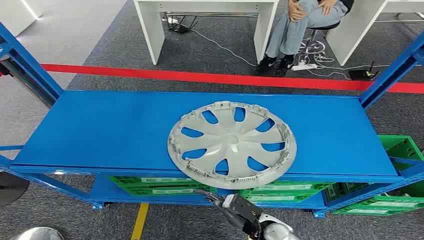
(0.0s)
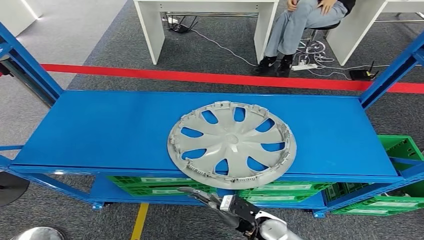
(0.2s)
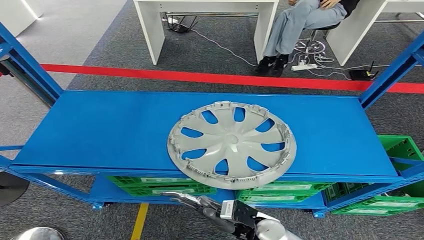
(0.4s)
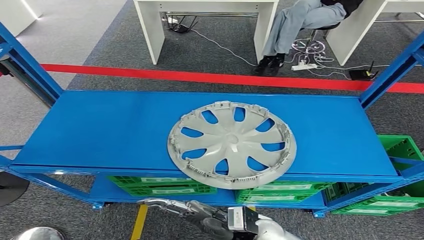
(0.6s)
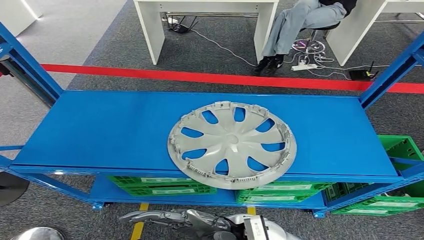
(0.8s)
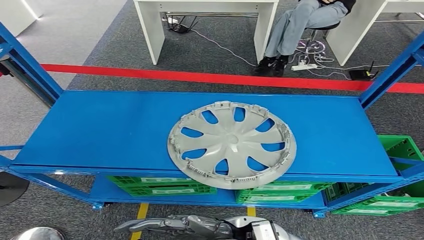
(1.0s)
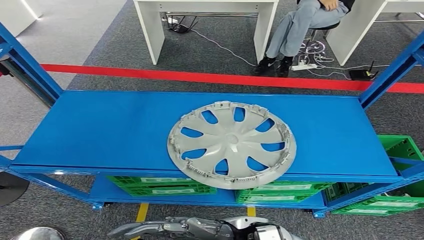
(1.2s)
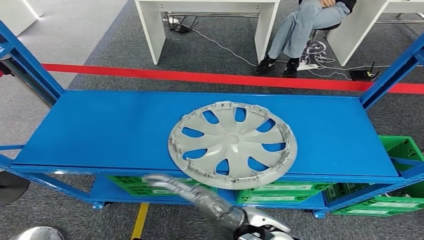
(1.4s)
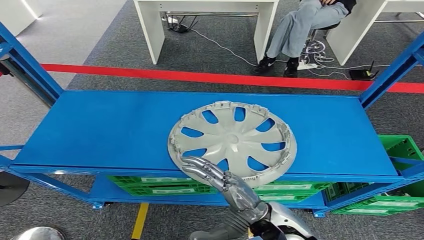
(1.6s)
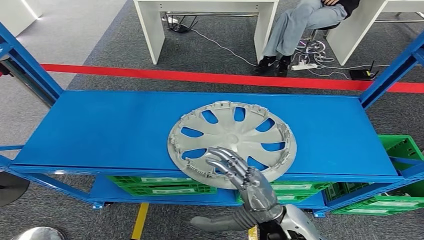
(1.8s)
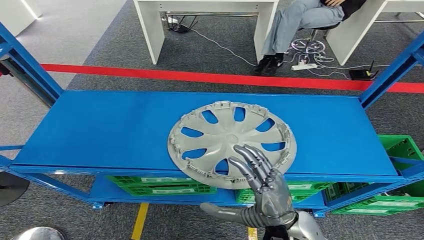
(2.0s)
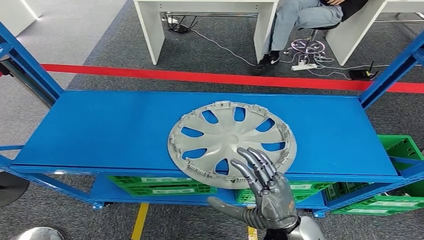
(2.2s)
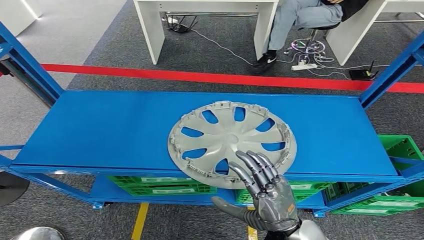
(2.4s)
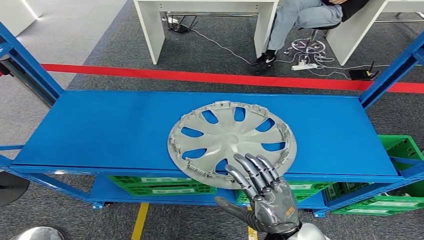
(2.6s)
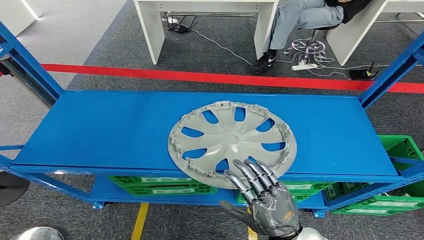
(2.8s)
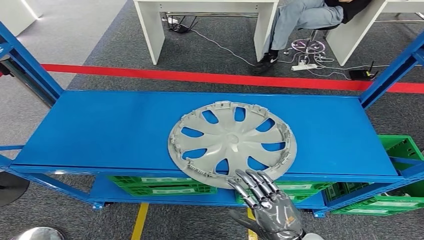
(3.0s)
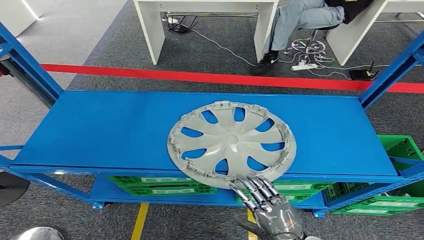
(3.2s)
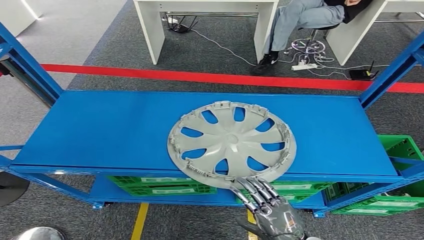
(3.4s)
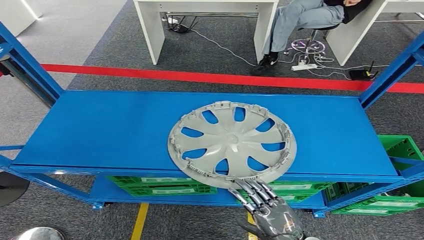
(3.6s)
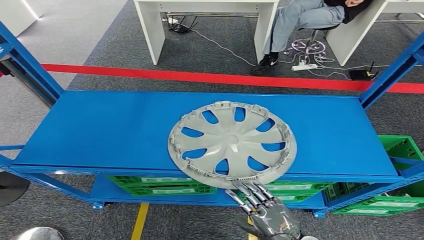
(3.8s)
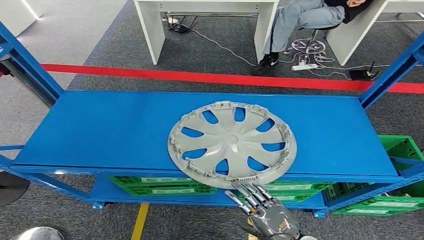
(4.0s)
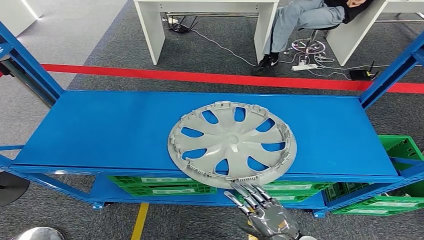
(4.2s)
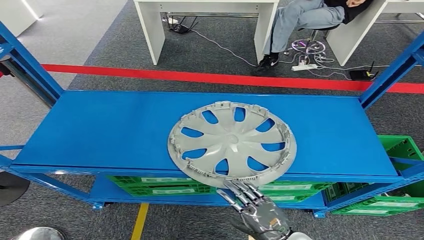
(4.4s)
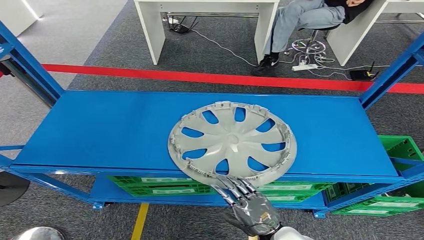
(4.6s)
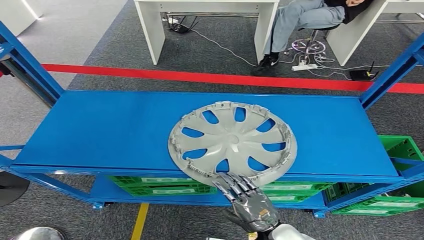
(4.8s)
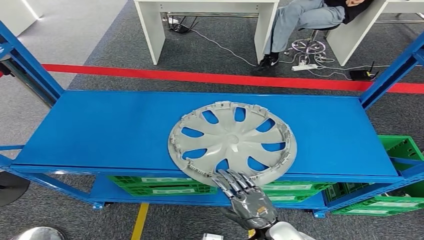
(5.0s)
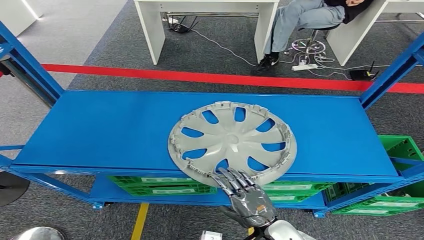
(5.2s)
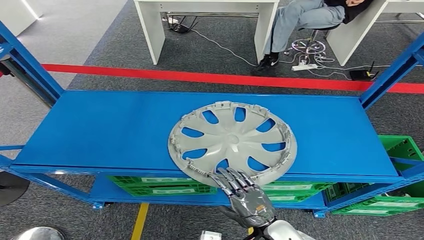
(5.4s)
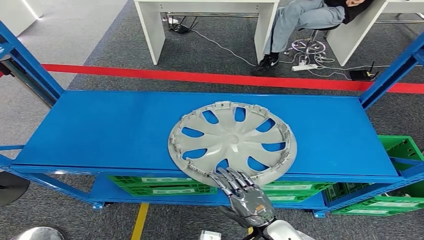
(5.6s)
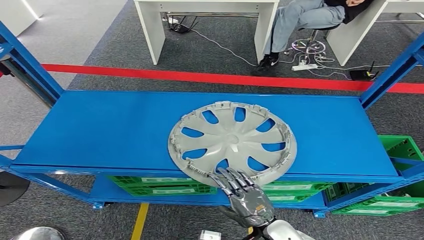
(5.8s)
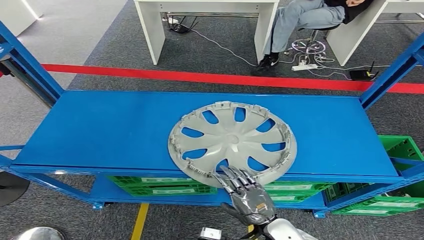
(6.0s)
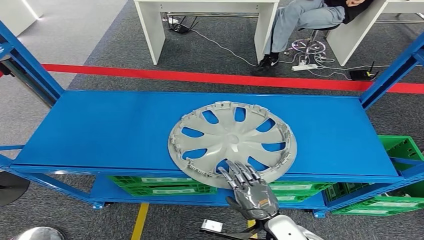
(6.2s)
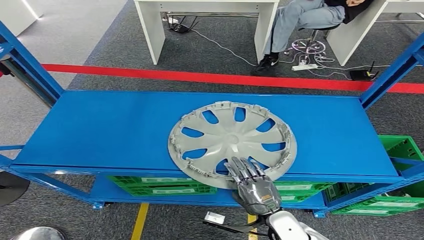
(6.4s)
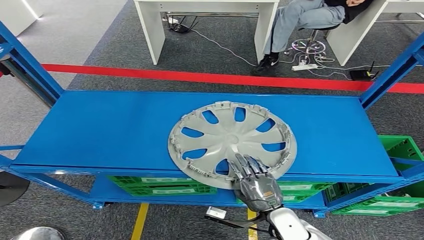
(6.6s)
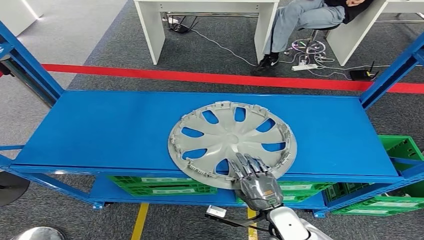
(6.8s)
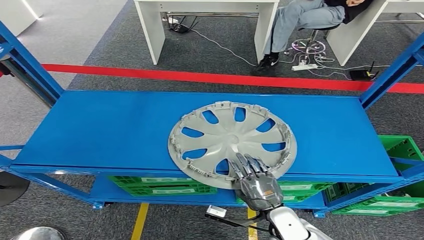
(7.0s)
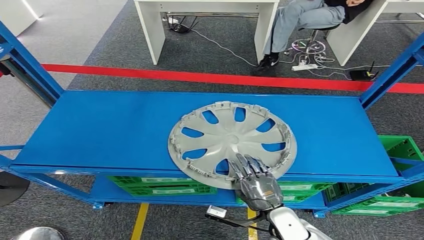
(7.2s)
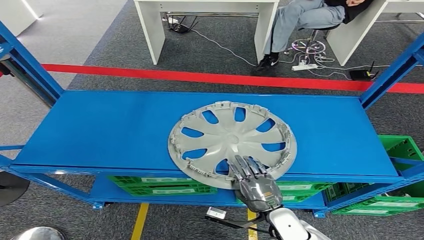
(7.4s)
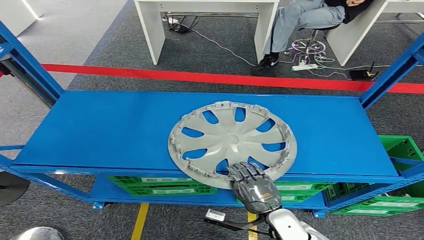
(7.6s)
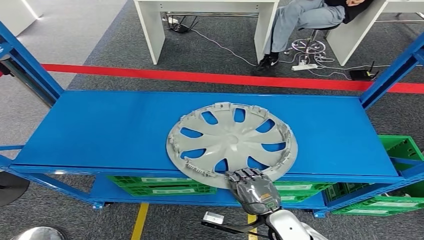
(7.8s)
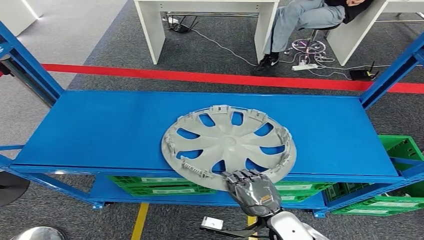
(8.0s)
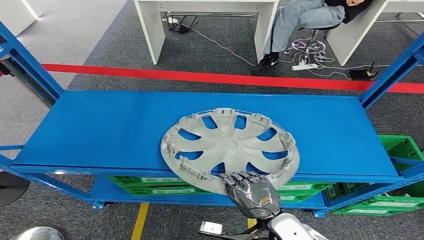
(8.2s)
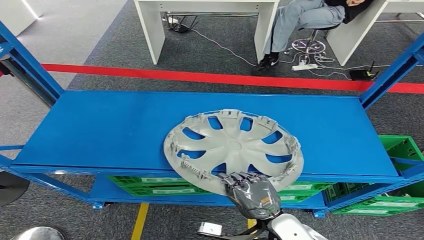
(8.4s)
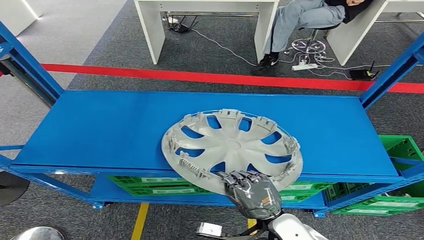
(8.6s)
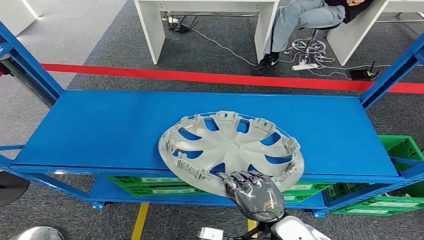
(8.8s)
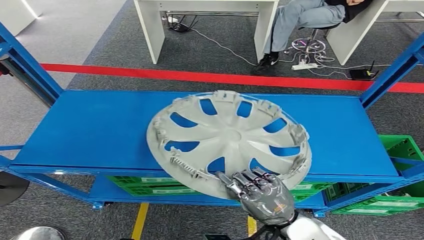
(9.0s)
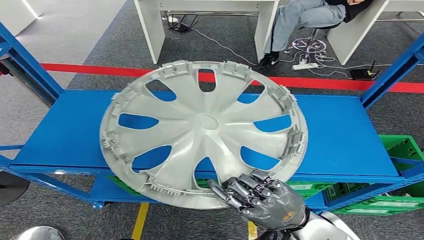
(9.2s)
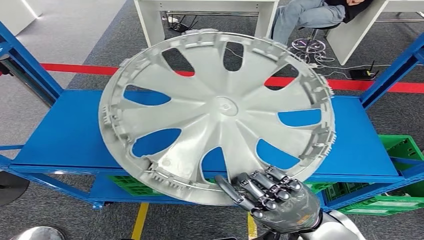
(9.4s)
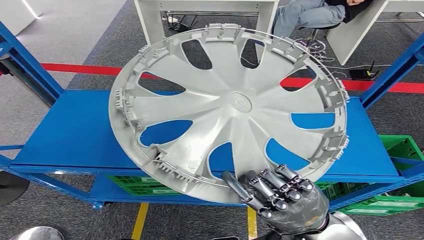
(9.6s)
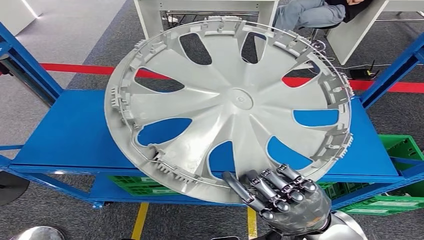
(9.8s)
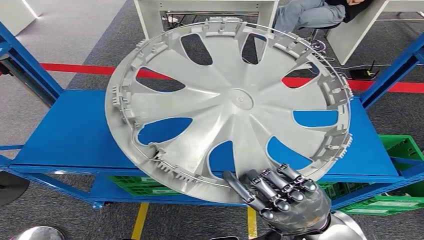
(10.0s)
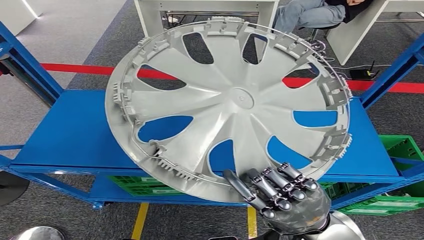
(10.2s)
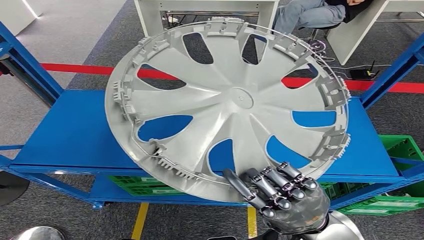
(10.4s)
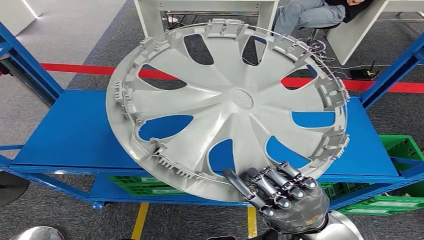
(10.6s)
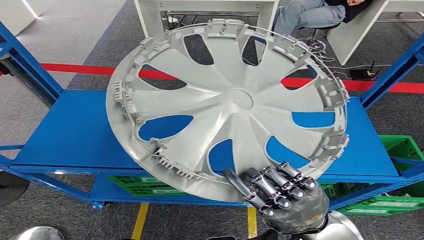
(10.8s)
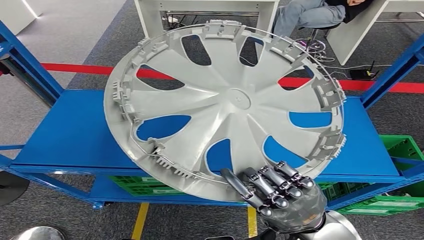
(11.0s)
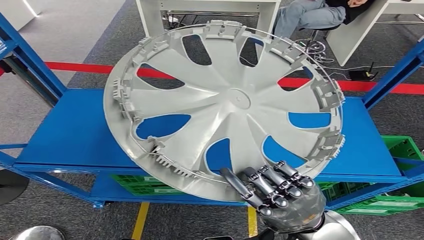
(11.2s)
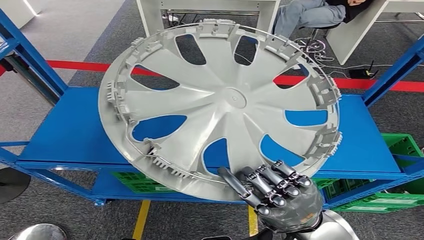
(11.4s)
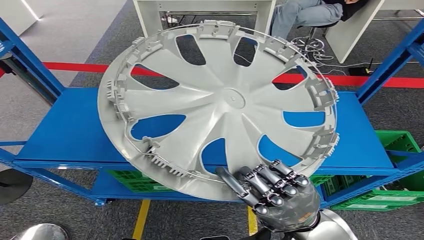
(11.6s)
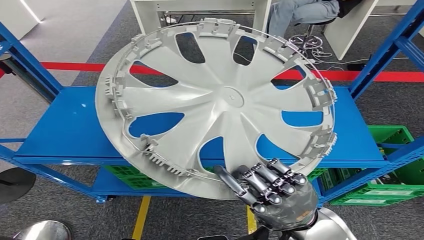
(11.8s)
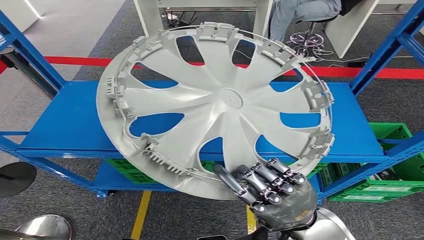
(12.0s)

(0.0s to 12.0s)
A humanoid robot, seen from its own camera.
1.6s - 3.0s: The right hand is displaced to the right, downward and backward by approximately 10 cm.
3.0s - 4.4s: The right hand shifts some 5 cm downward.
4.4s - 6.0s: The right hand shifts by some 5 cm.
6.0s - 7.6s: The hands make only small movements.
7.6s - 9.0s: The right hand is displaced upward by about 10 cm.

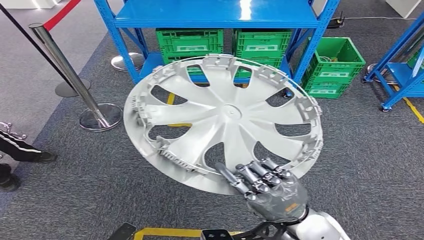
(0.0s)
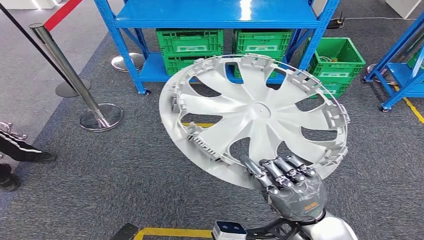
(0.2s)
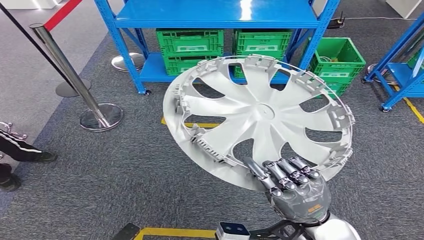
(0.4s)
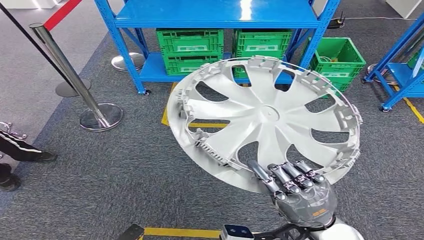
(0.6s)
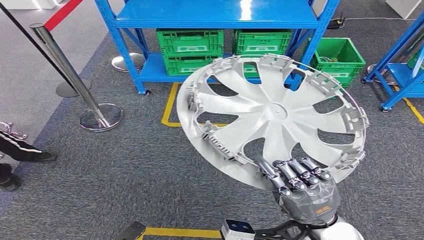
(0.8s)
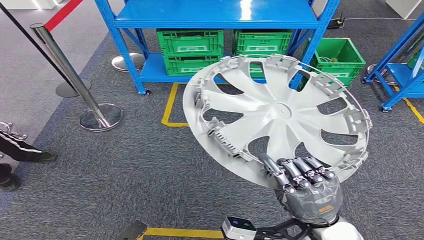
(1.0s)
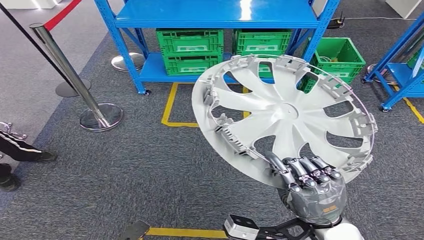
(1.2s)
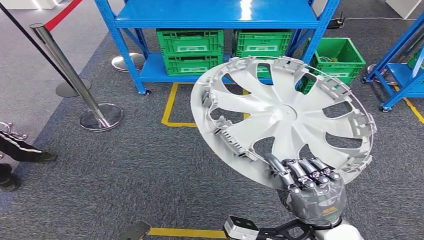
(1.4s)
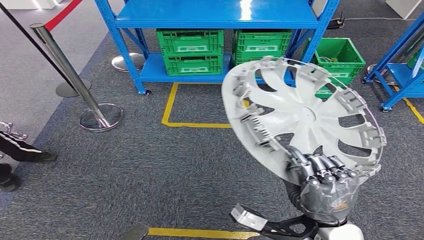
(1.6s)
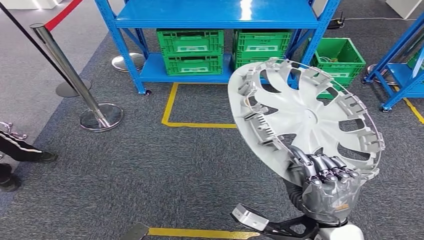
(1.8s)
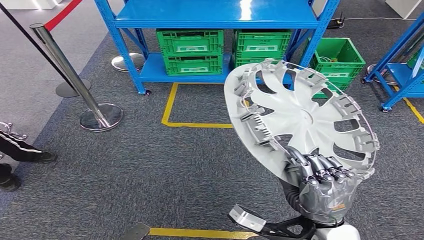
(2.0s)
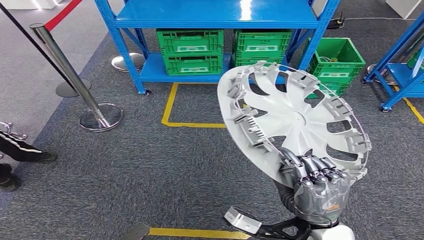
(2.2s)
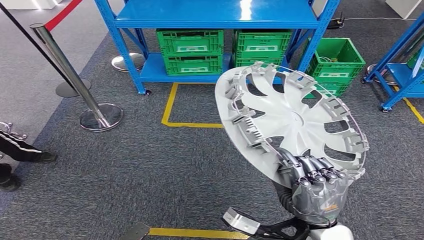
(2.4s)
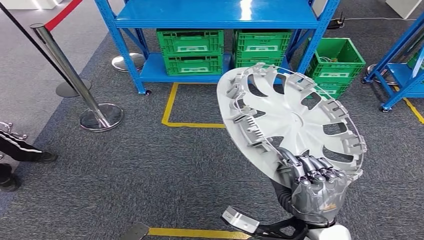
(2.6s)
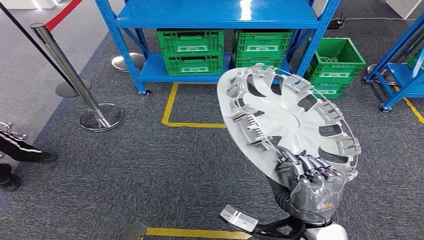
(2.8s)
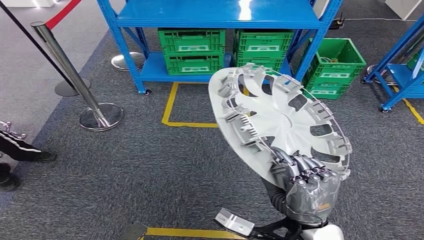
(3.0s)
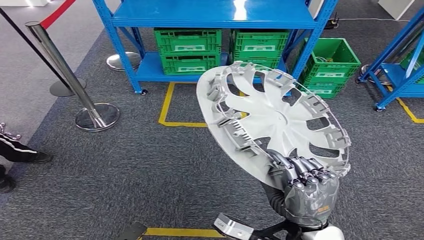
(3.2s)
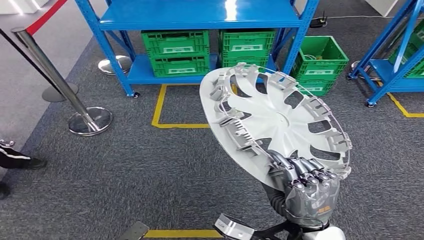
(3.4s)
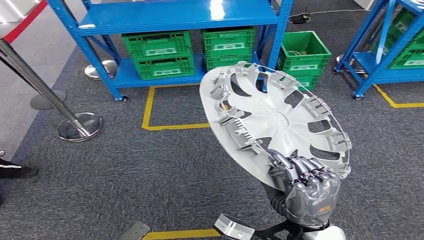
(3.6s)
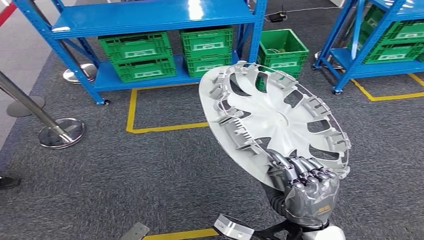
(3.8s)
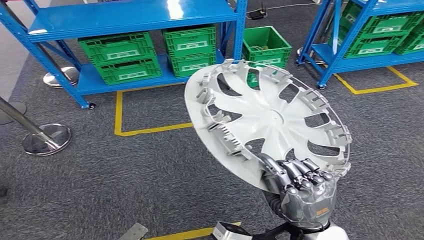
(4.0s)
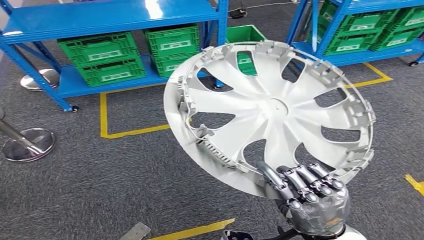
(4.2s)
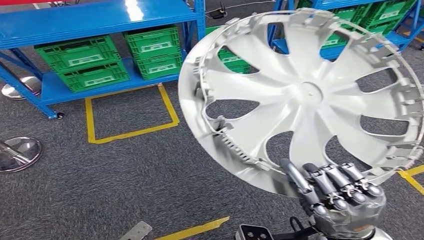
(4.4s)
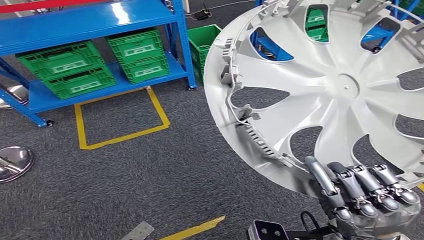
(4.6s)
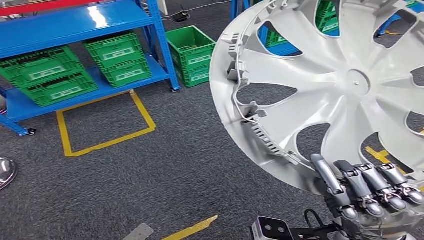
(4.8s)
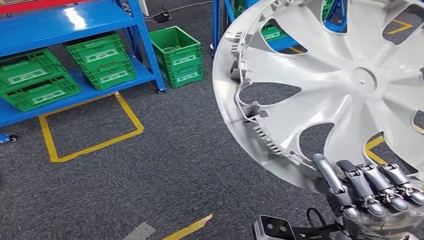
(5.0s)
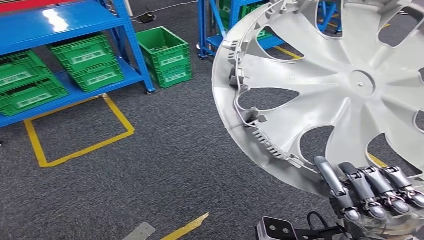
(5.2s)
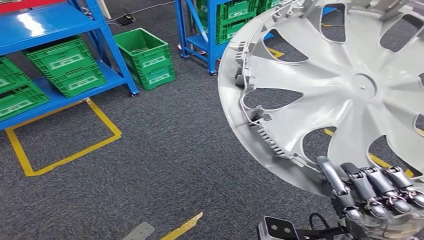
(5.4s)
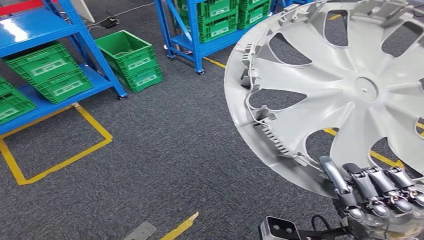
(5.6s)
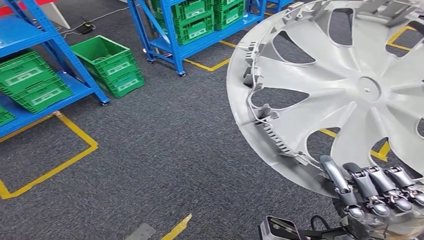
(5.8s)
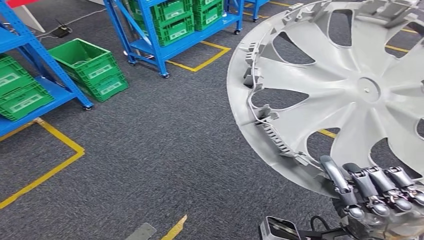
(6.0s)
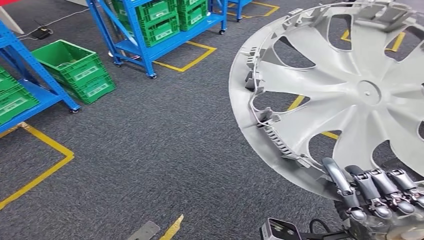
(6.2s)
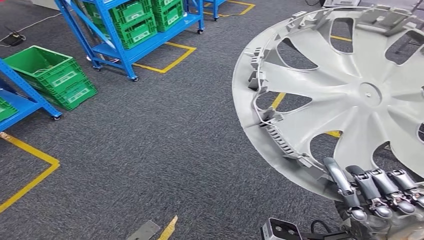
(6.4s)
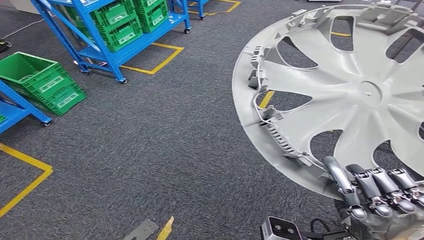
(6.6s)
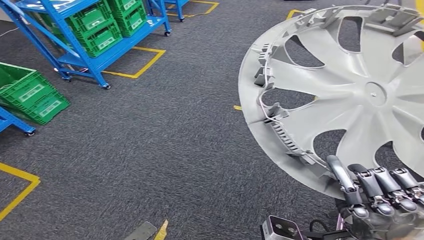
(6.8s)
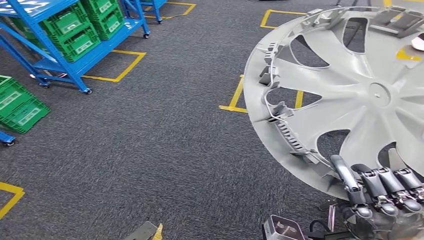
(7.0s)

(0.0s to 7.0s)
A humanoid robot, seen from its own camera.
1.4s - 2.8s: There are only small adjustments of the hands.
